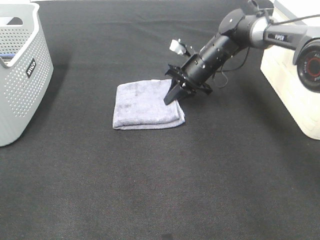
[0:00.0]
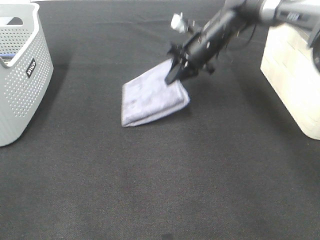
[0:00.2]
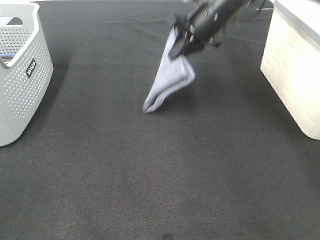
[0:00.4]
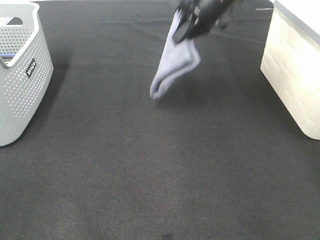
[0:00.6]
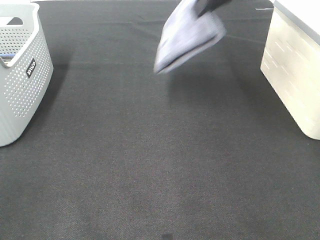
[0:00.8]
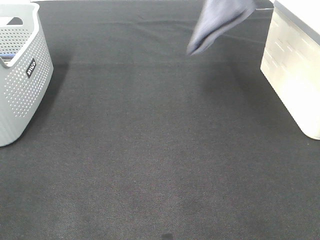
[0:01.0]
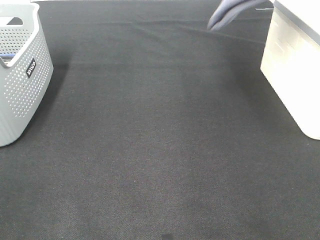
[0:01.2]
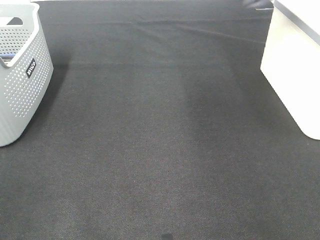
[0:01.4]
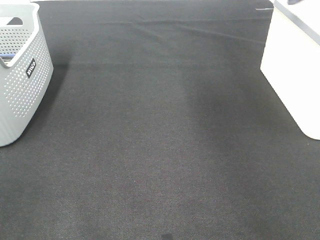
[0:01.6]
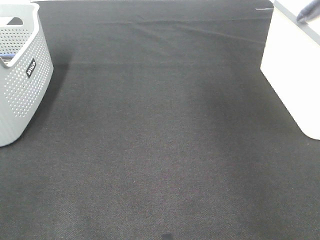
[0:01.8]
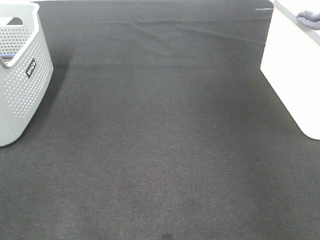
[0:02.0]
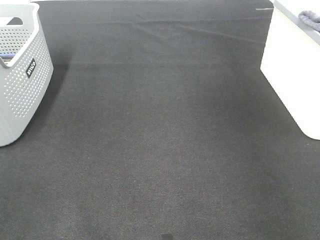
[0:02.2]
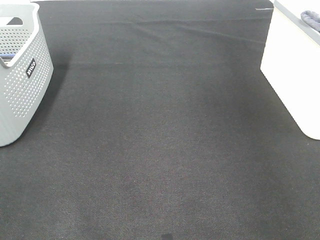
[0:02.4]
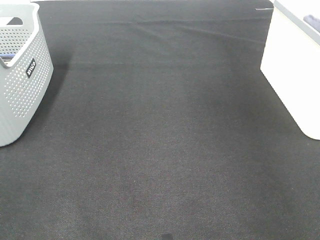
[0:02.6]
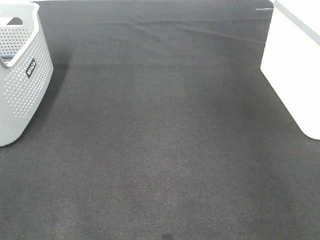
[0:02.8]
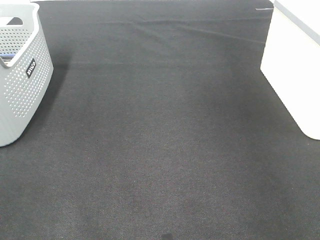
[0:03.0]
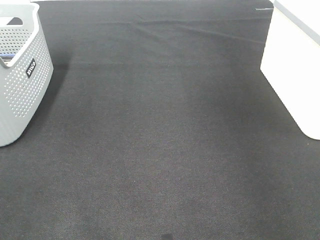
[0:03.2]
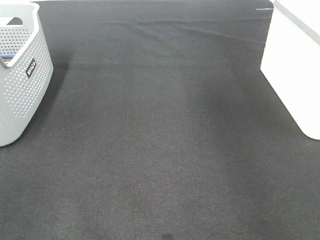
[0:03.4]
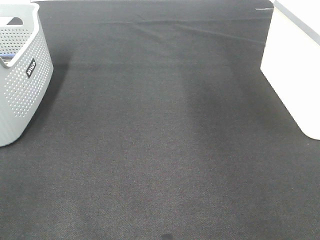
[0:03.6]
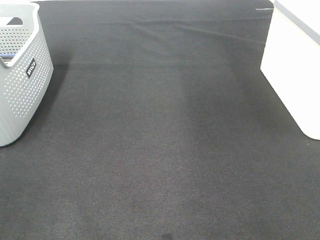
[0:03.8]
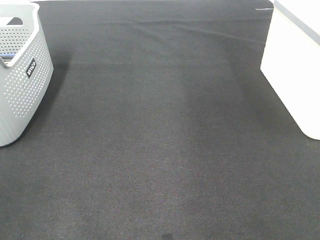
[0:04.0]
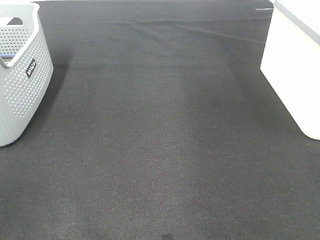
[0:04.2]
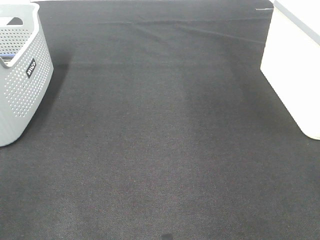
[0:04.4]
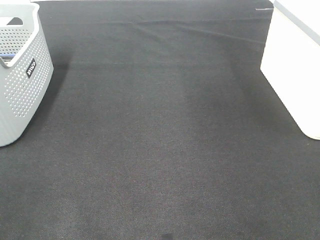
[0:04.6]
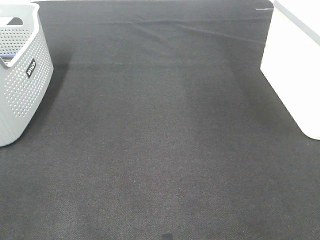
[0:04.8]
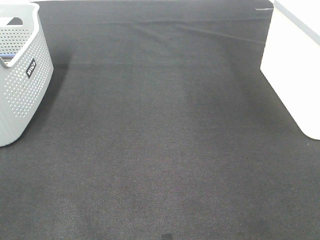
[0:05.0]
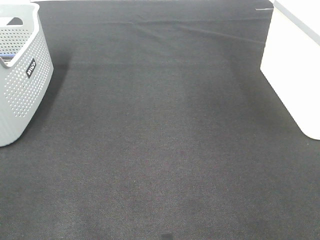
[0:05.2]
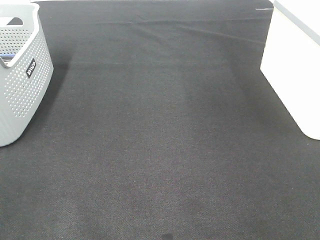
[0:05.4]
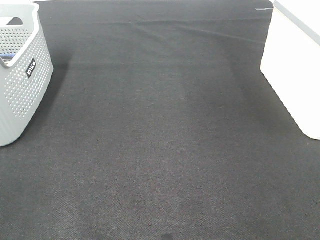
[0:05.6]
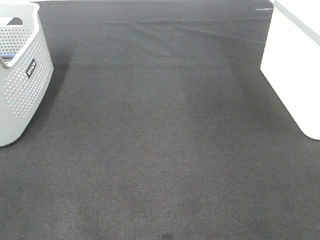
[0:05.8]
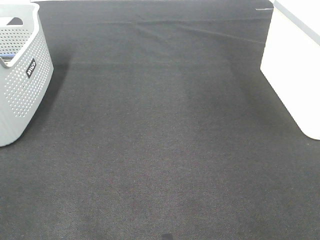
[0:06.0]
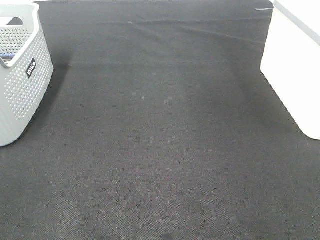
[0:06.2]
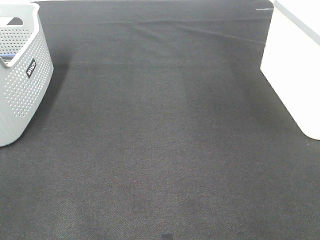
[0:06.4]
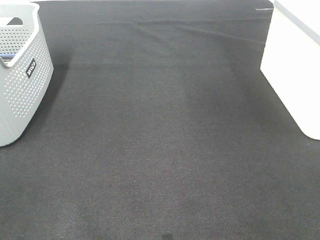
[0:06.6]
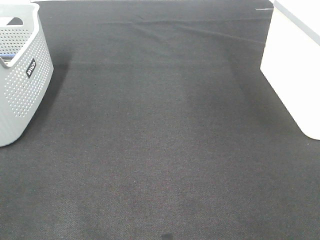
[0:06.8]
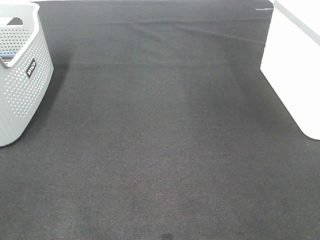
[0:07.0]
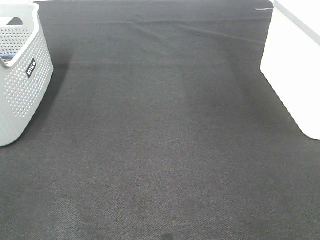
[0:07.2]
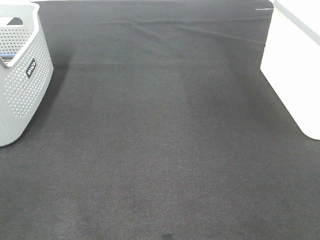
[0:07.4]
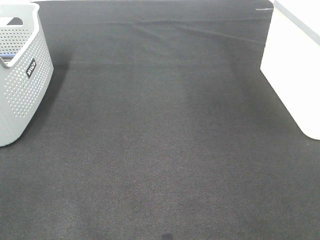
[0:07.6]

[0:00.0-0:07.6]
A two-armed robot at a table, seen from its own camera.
Step, 0:00.0 to 0:02.8: Right hand: place the grey towel in right basket.
0:00.0 to 0:01.6: The right gripper travels upward and to the right by roughly 40 cm.

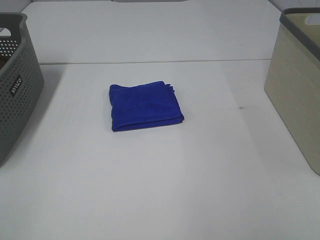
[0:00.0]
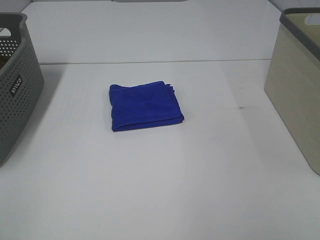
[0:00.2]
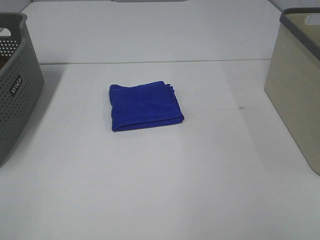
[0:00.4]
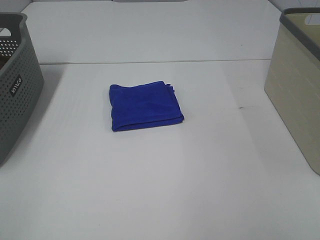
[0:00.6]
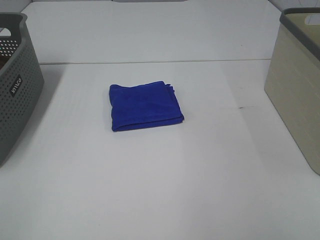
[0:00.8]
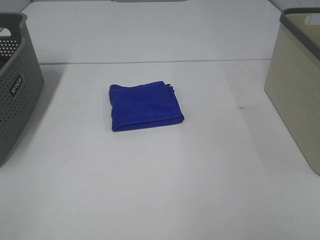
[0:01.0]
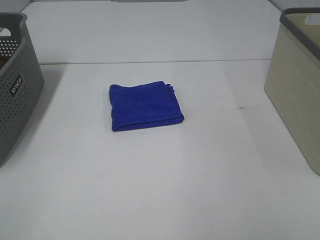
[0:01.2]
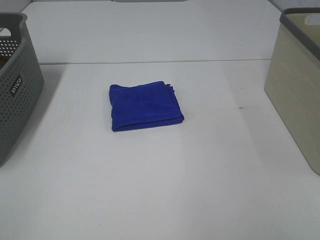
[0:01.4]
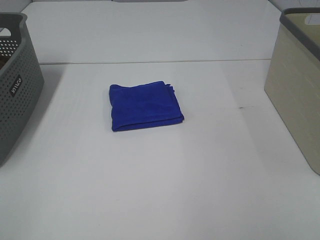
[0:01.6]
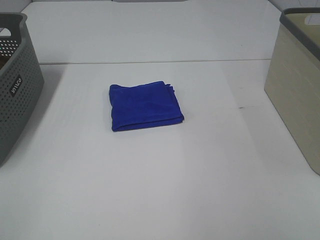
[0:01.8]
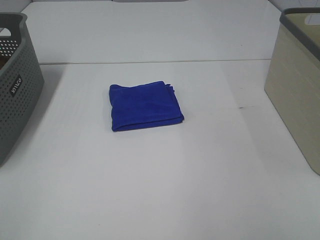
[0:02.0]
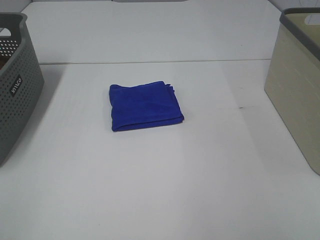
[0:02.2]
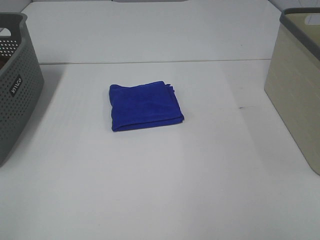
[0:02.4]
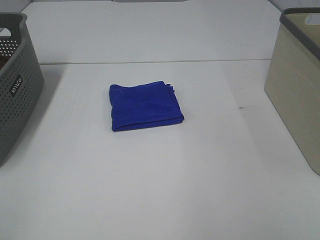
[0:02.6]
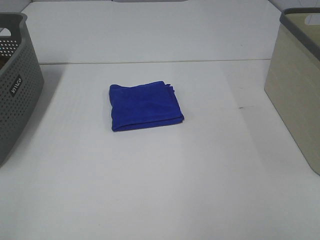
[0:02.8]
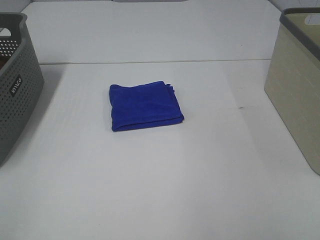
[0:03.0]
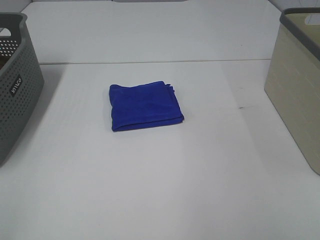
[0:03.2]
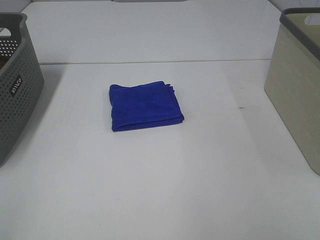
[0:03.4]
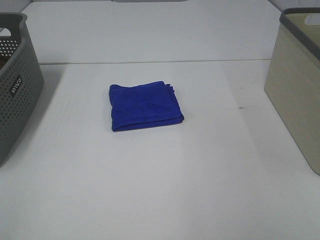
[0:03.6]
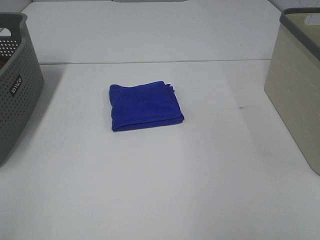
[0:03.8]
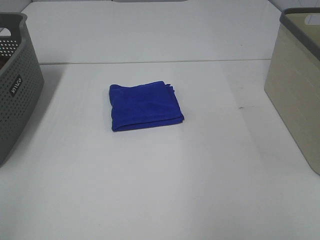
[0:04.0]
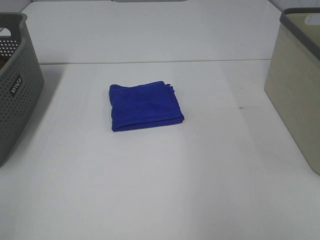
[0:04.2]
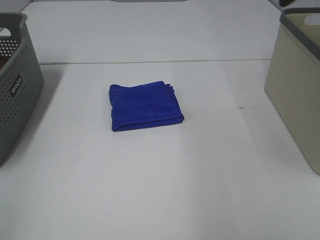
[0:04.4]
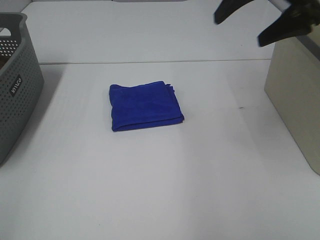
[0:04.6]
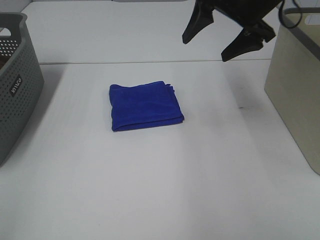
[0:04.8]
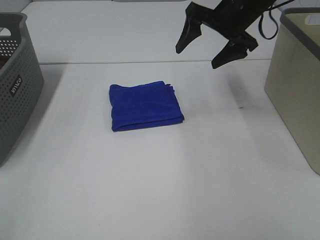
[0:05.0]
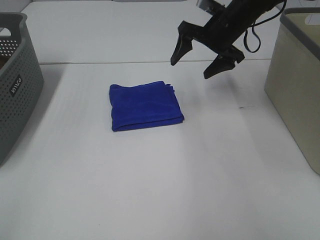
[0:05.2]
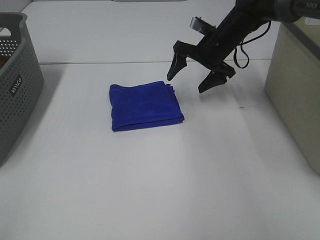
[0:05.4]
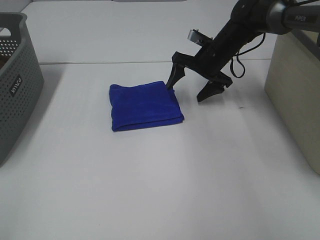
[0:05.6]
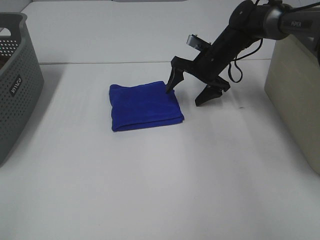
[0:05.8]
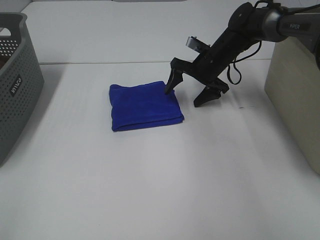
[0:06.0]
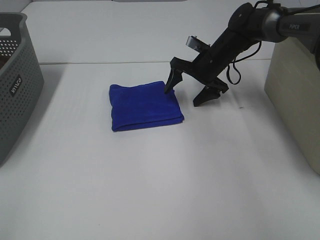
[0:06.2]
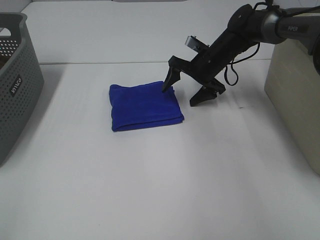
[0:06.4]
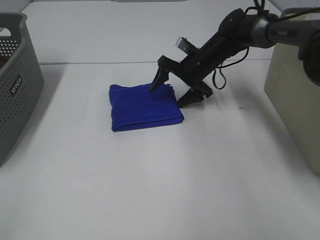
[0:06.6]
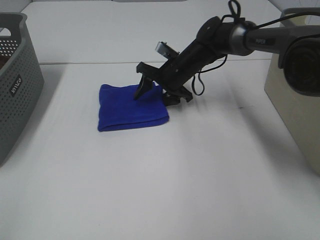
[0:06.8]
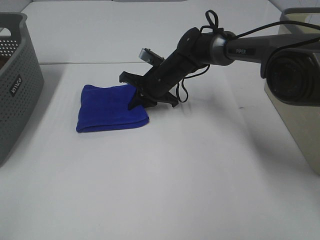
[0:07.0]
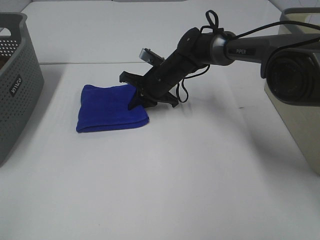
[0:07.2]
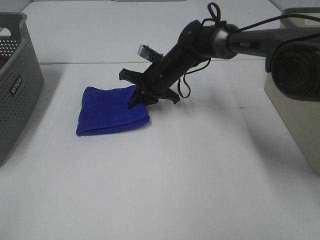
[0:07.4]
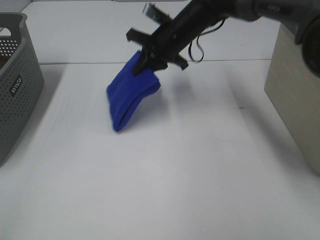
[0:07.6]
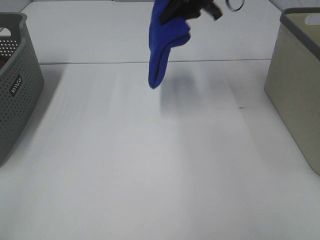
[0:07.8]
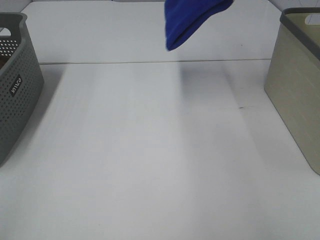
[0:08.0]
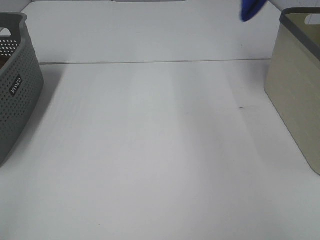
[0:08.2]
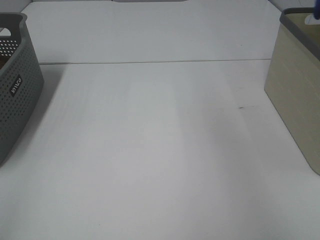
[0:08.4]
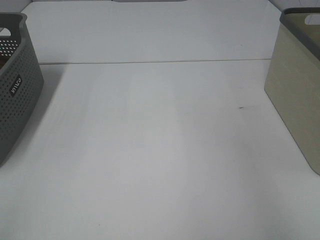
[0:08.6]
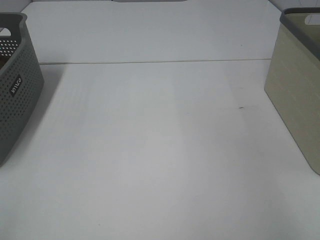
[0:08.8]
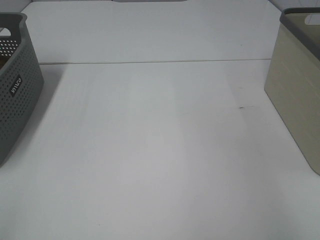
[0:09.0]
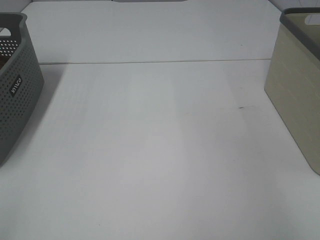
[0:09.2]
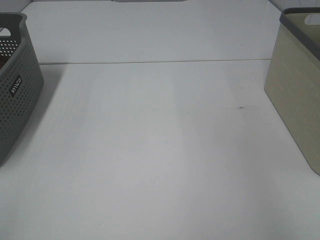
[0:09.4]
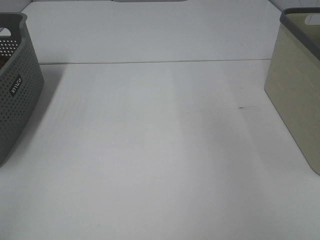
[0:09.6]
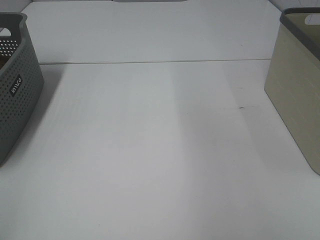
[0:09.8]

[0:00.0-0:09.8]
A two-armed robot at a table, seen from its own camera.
Step, 0:00.0 to 0:07.0: Right hand: grab the folded blue towel.
Step, 0:07.2 to 0:09.4: Right hand: place the blue towel in right basket.
0:00.0 to 0:02.8: Both grippers stay about where they are.
0:04.2 to 0:05.6: The right gripper goes some 40 cm forward, downward and to the left.
0:05.6 to 0:07.0: The right gripper shifts roughly 10 cm to the left, and closes.
0:07.0 to 0:08.4: The right gripper moves upward and to the right, some 50 cm.

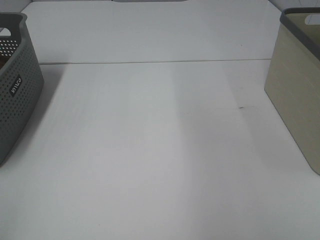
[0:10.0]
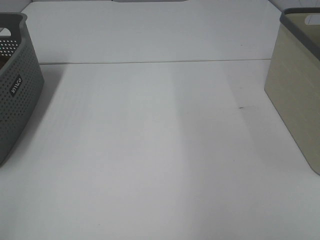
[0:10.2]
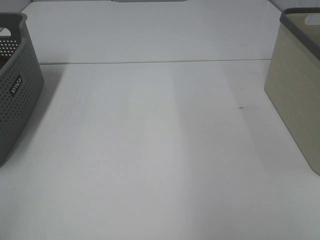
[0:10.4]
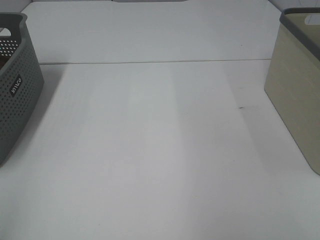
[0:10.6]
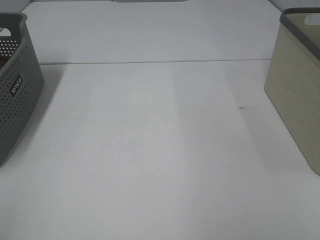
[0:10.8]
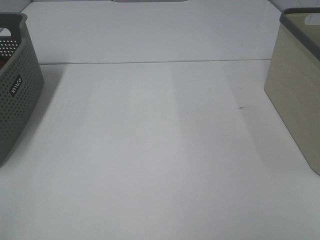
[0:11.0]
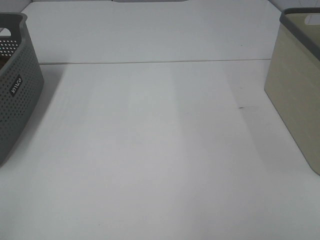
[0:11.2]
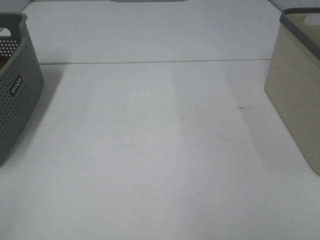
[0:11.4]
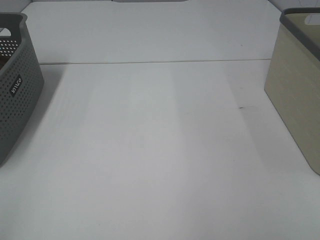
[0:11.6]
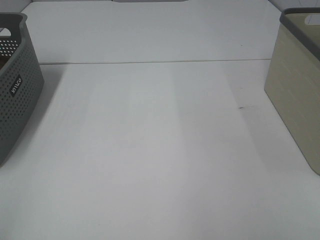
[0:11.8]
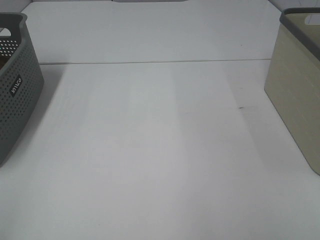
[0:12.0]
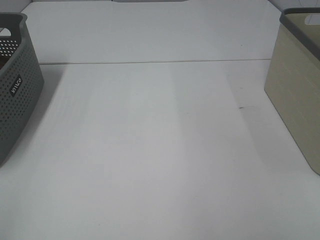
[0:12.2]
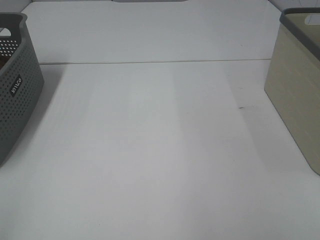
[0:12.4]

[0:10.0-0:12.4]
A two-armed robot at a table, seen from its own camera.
0:11.2 to 0:12.4: The two grippers keep their place.

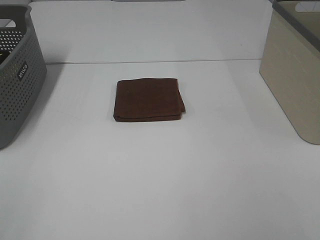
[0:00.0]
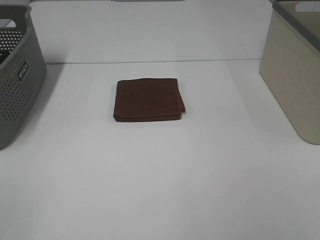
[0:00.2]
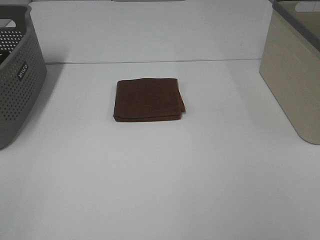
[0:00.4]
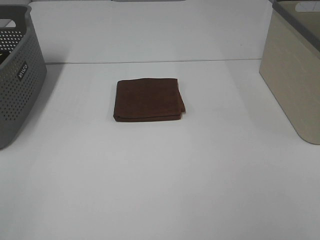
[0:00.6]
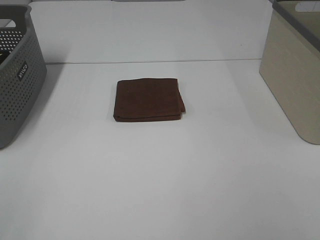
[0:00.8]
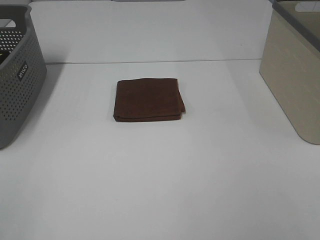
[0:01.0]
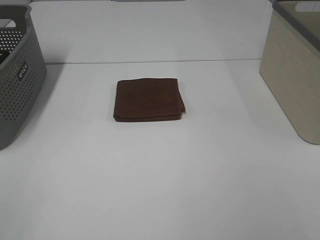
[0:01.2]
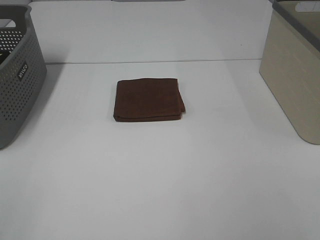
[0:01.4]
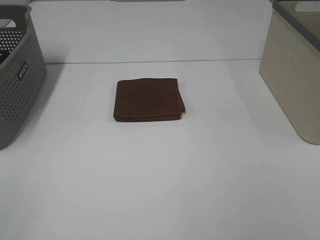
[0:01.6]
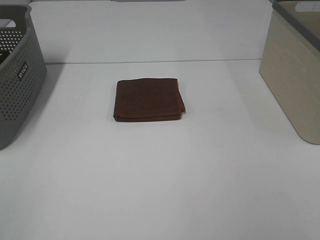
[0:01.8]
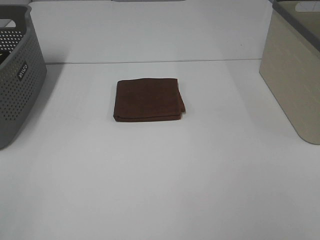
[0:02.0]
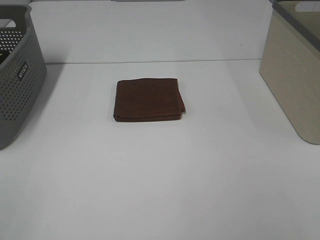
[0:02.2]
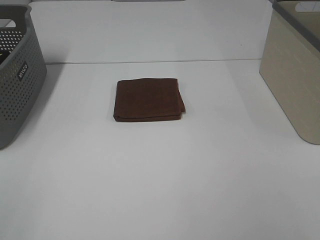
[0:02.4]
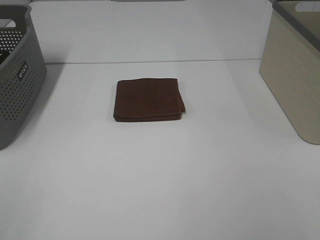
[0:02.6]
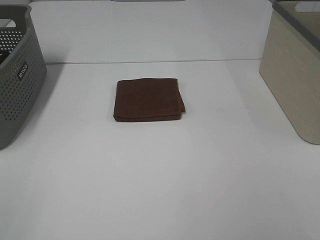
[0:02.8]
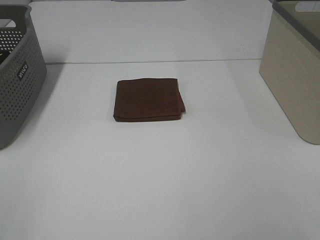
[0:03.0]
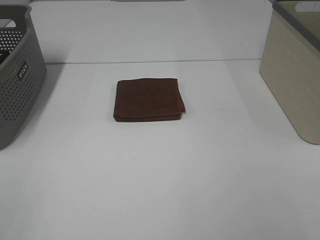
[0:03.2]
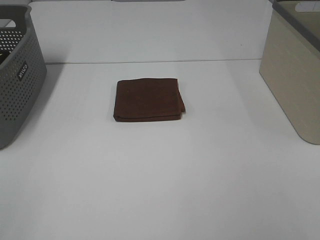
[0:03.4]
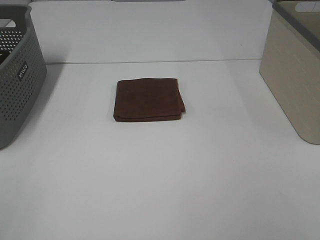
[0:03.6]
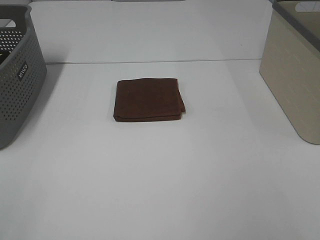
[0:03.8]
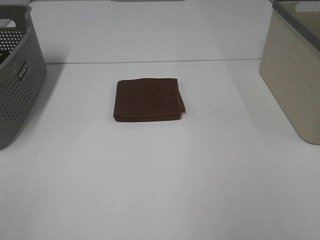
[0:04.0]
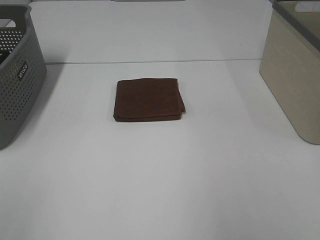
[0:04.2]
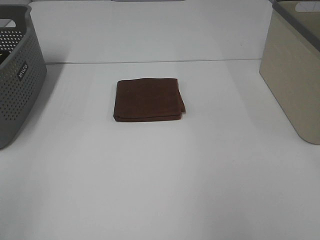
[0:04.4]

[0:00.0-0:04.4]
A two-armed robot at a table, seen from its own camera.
0:00.0 to 0:03.0: The two grippers keep their place.
